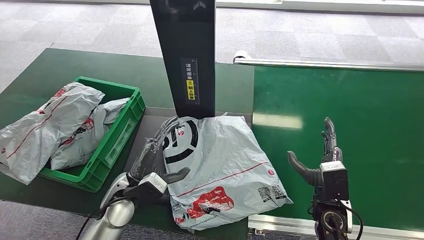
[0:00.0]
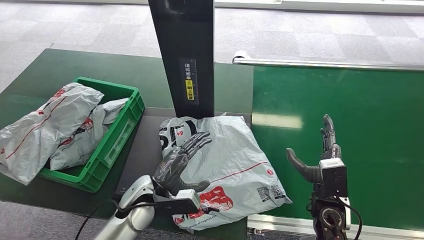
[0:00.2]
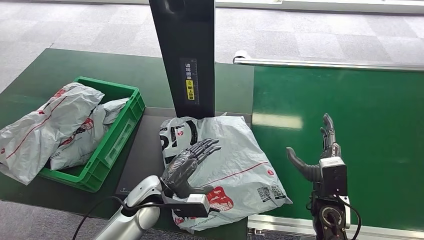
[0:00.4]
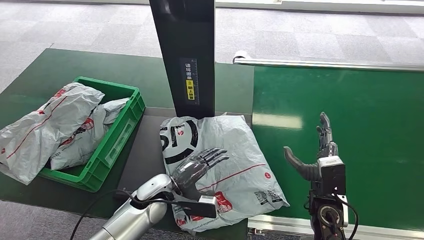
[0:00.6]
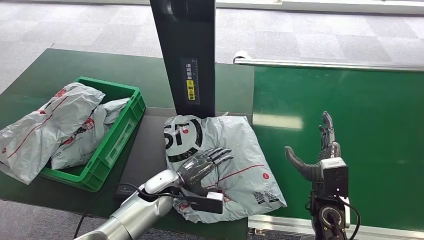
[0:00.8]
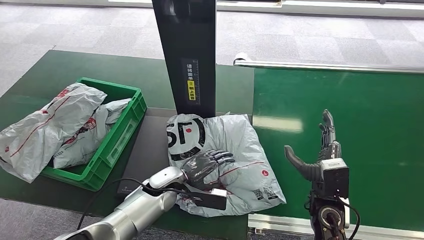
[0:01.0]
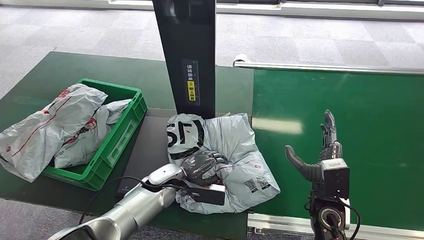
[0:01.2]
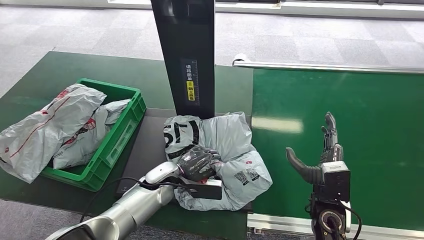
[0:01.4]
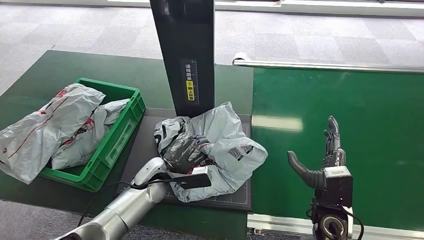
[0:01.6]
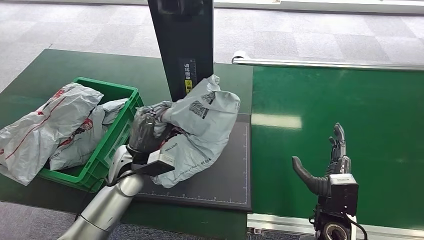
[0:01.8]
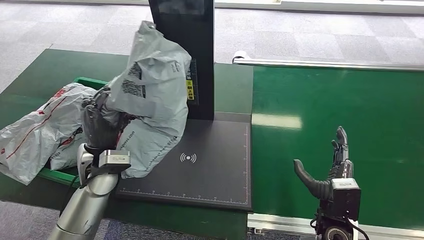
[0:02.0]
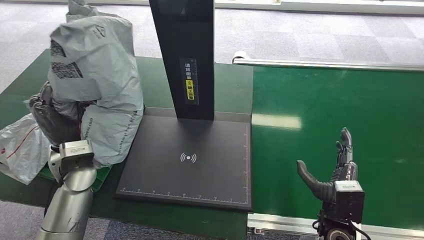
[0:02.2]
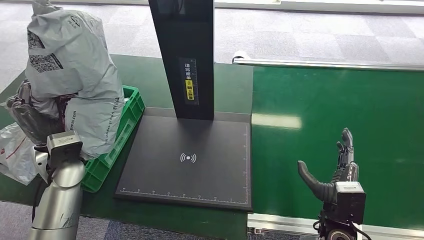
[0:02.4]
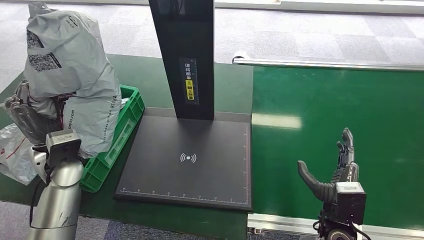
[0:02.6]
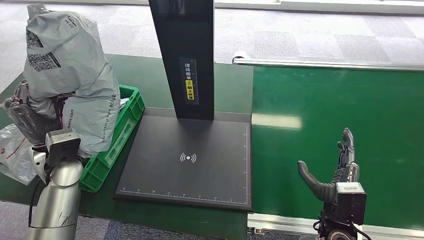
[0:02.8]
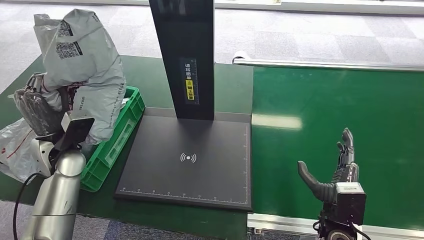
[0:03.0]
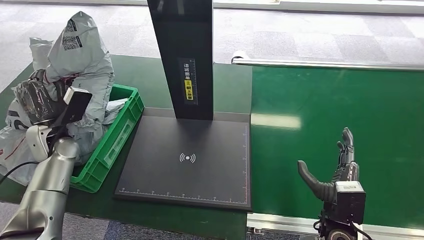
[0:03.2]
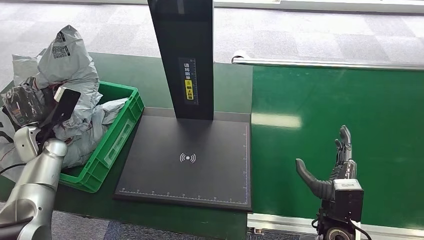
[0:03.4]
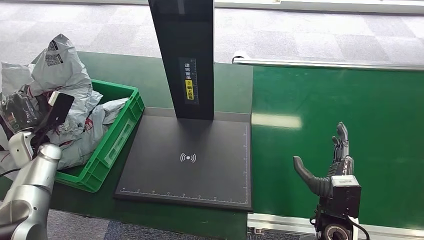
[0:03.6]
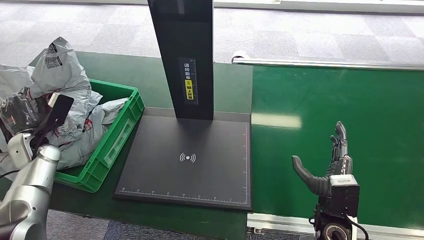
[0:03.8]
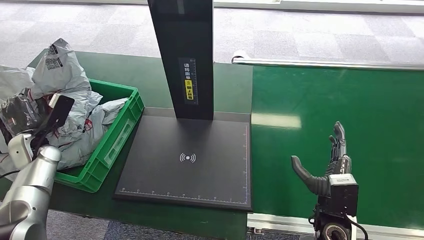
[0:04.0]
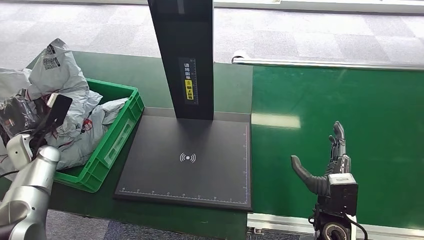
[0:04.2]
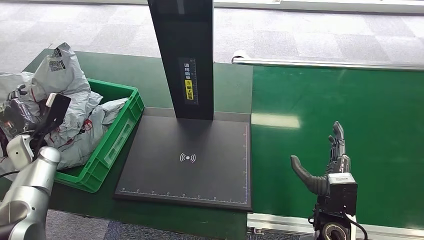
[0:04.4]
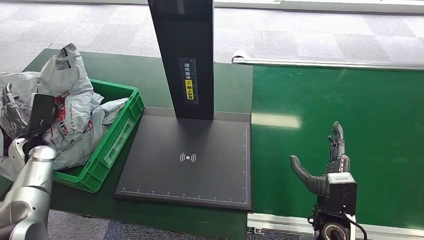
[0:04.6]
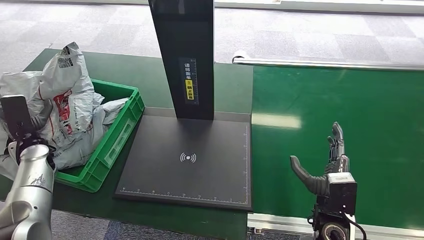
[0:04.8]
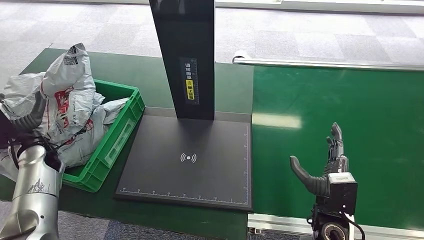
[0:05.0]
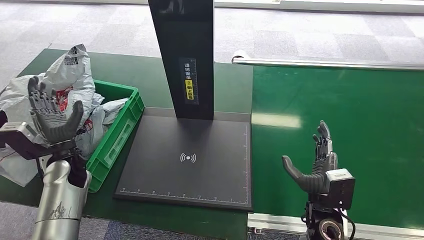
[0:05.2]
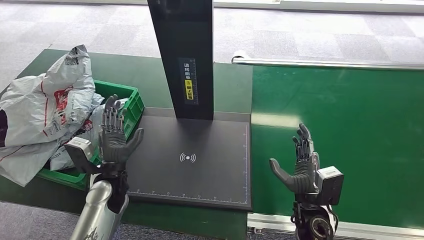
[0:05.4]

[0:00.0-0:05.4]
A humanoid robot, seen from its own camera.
Step, 0:00.4 to 0:02.6: Pick up the package from the inbound machine.
Step, 0:02.8 to 0:05.4: Place the package into the parcel locker.
0:02.8 to 0:04.0: The left hand shifts roughly 15 cm to the left and downward.
0:04.0 to 0:05.4: The left hand shifts some 20 cm to the right.
